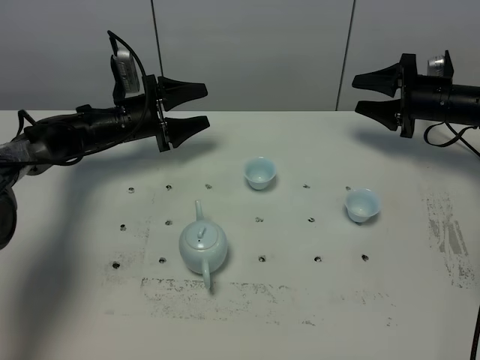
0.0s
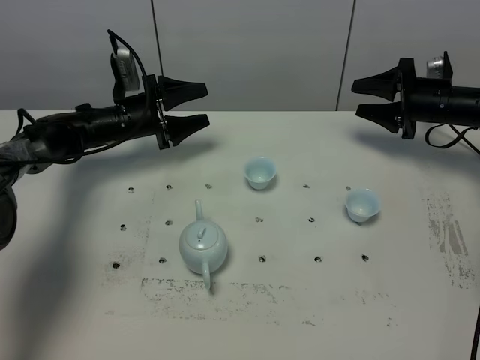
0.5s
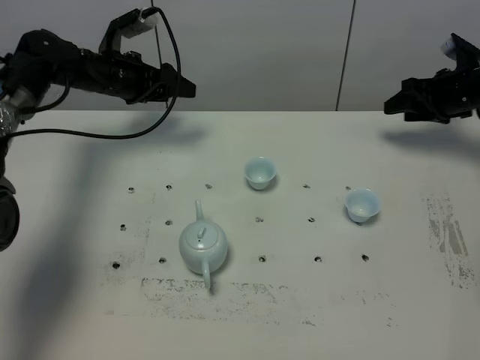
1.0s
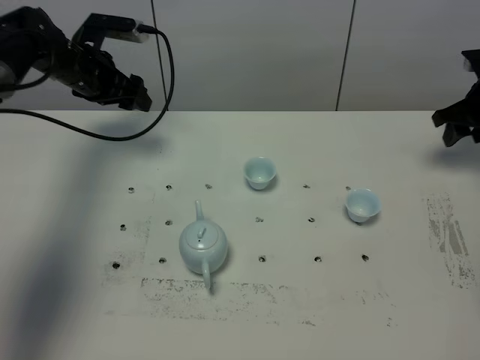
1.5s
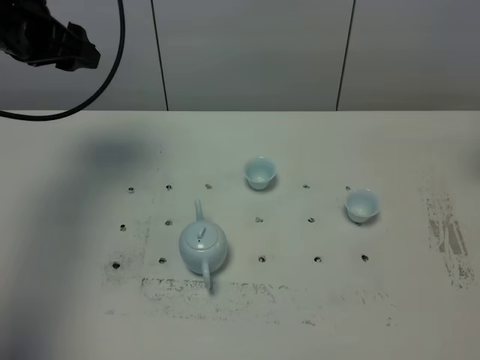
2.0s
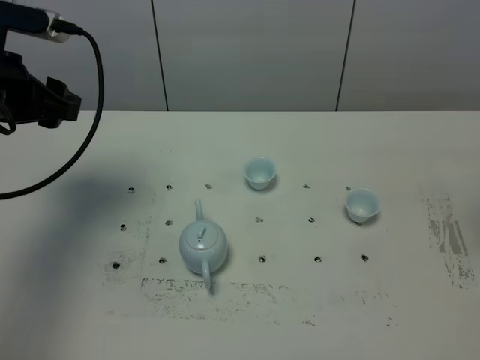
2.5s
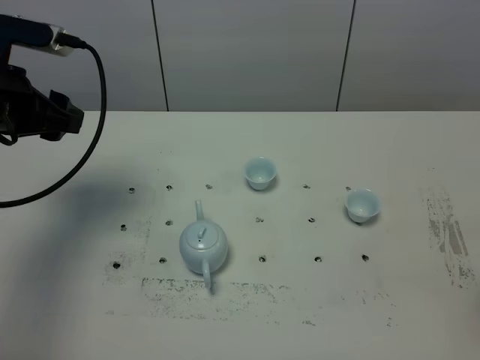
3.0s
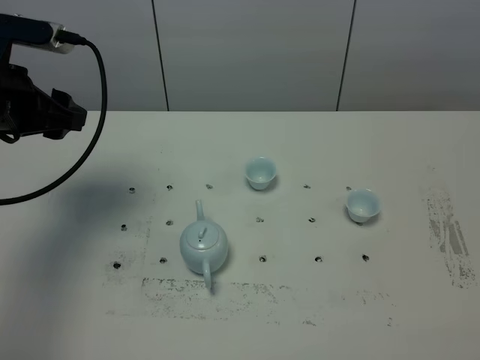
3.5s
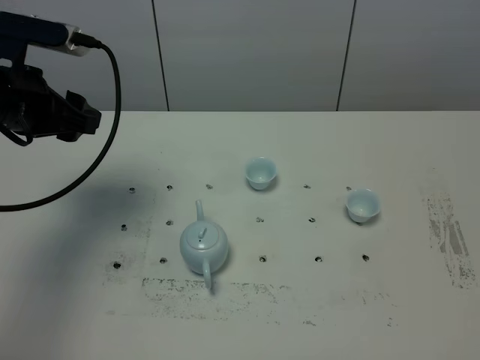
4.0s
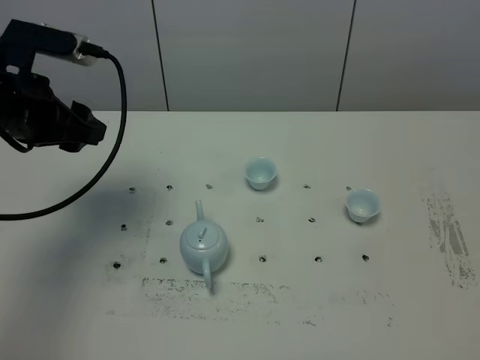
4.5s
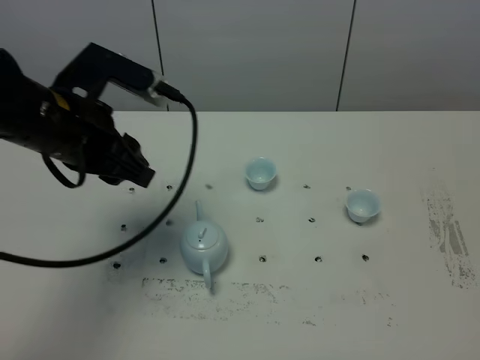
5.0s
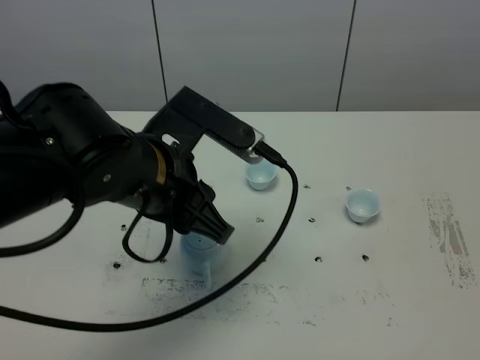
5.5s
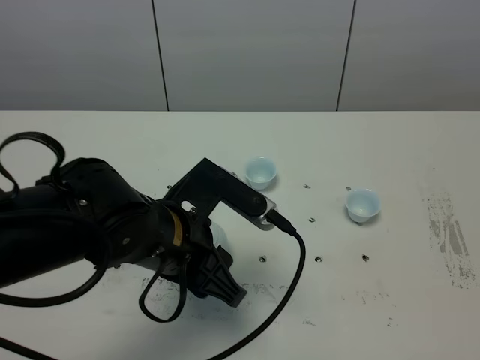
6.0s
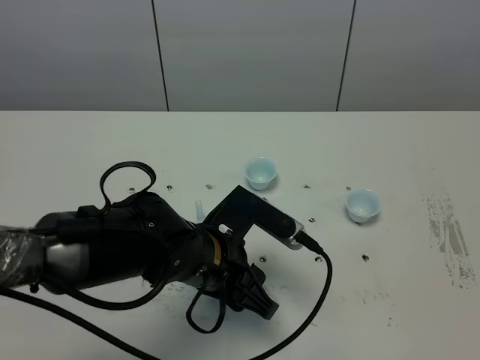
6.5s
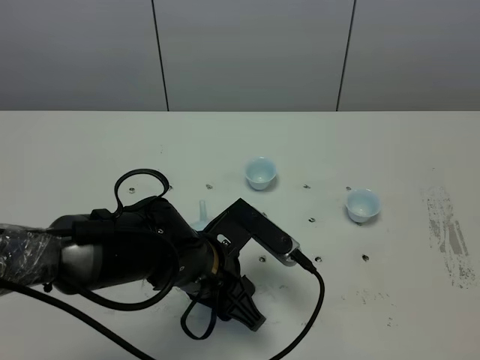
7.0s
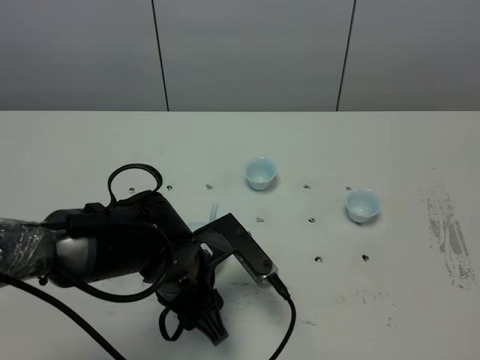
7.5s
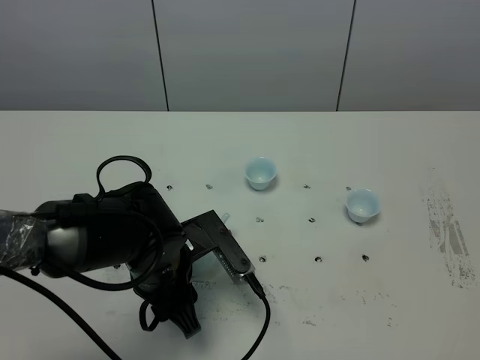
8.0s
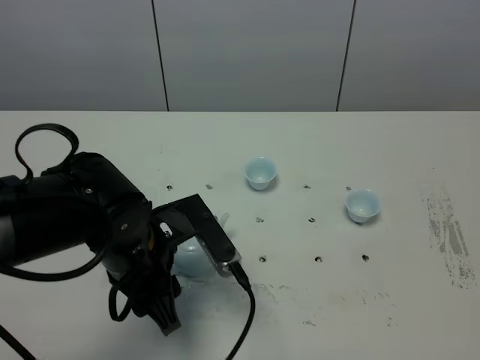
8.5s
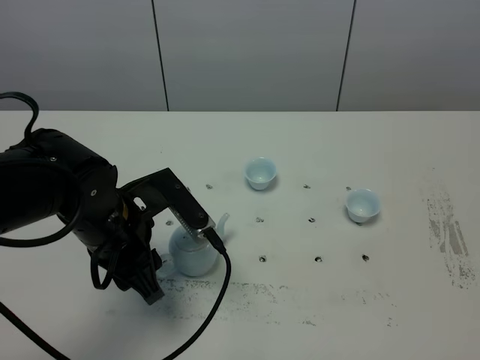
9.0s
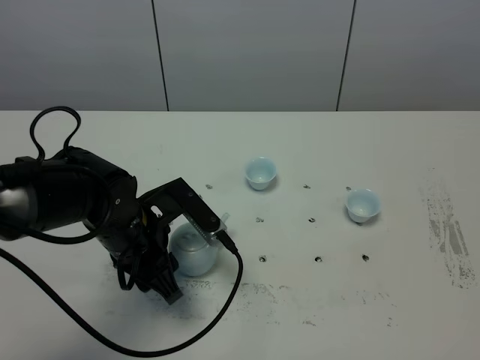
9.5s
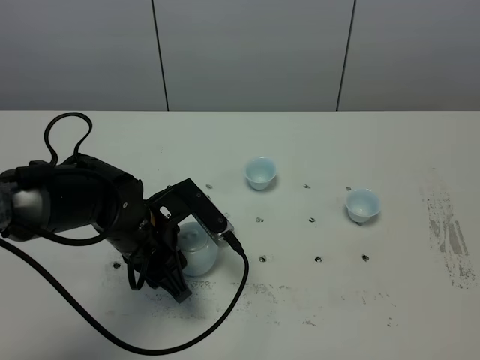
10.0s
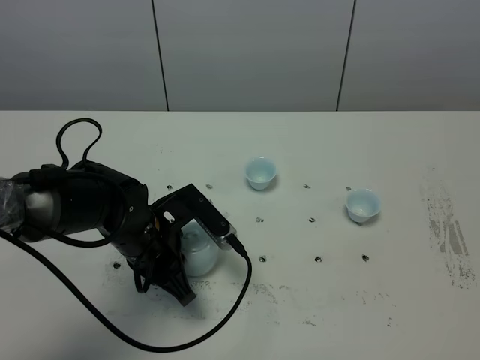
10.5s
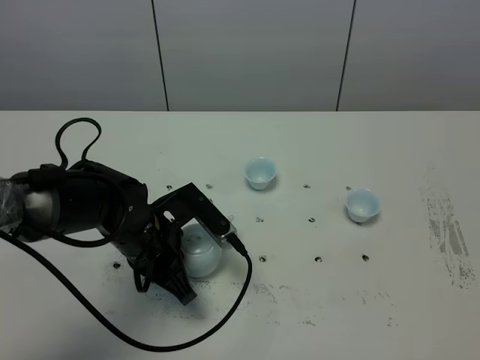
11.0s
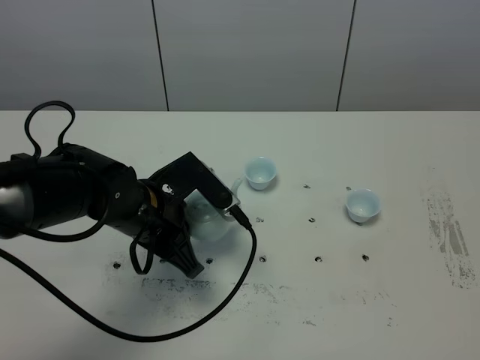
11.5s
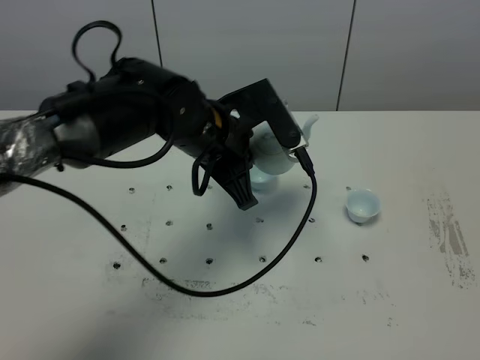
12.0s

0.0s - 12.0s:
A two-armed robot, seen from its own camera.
Task of the whole recording: grasp the blue porcelain teapot and pour the tea into the two blue porcelain teacups one by one, put the blue porcelain teapot back in its original place.
Step, 0.0s - 11.0s: Pick up the teapot with the left gripper.
0.0s - 2.0s: The left gripper heads upward, covering about 25 cm. Meanwhile the right gripper is displaced upward and backward by roughly 20 cm, and closes up.
2.0s - 4.0s: The left gripper heads backward, covering about 10 cm.
4.0s - 6.0s: The left gripper goes some 20 cm to the right and backward.
6.0s - 8.0s: The left gripper shifts roughly 5 cm downward.
8.0s - 10.0s: The left gripper ends up approximately 5 cm from where it was.
10.0s - 12.0s: The left gripper is displaced upward, to the right and forward by some 15 cm, and closes its fingers.

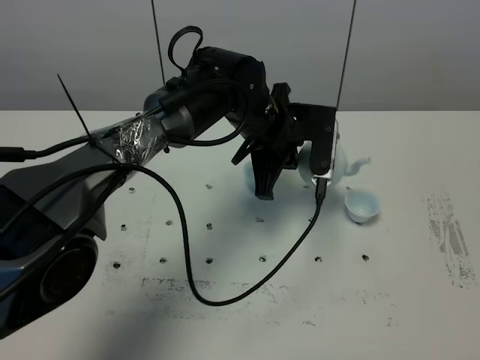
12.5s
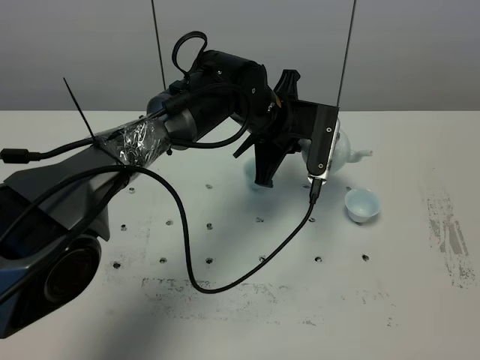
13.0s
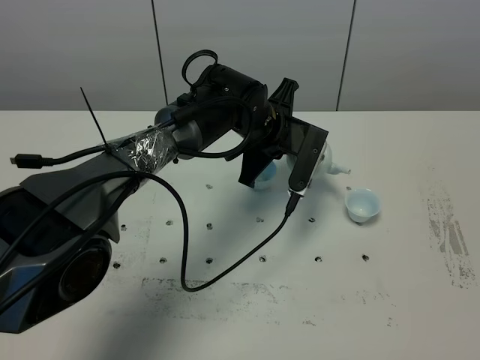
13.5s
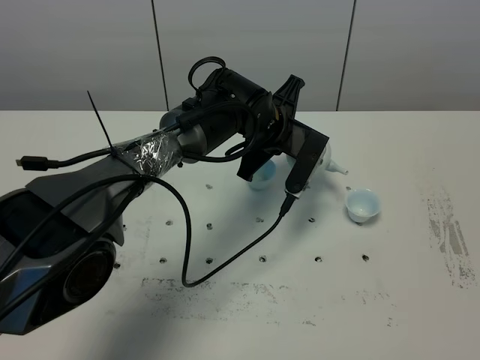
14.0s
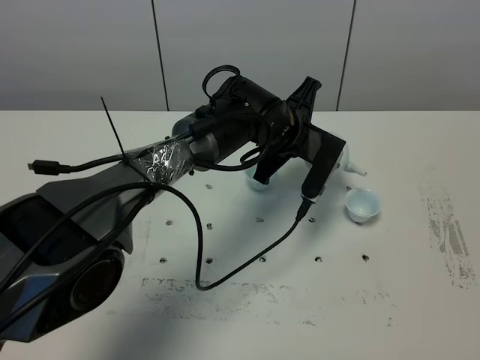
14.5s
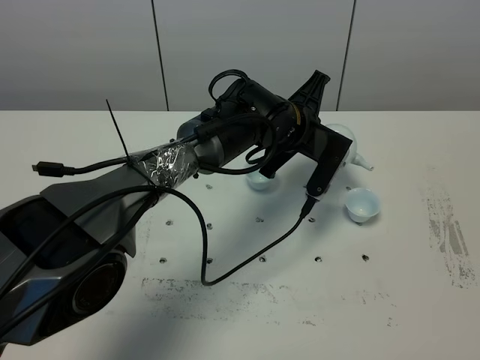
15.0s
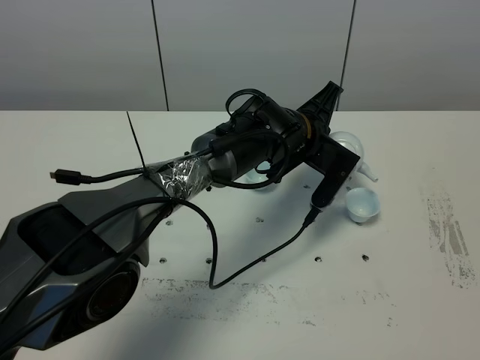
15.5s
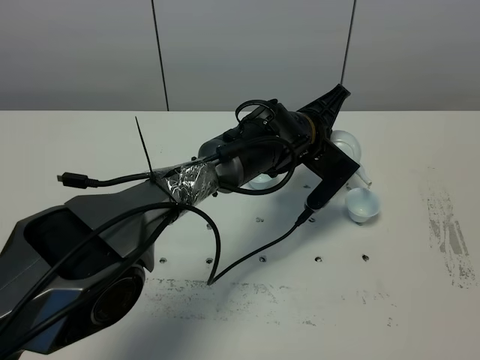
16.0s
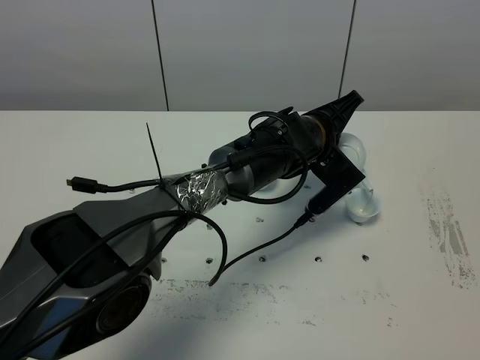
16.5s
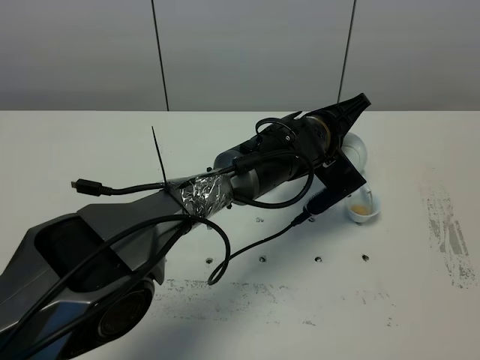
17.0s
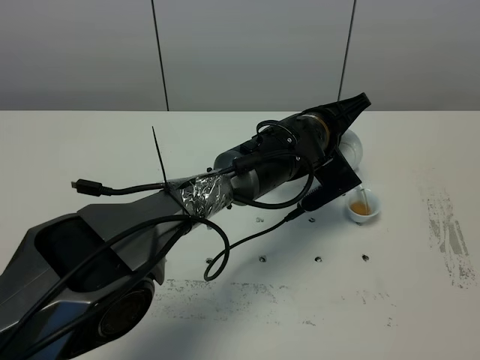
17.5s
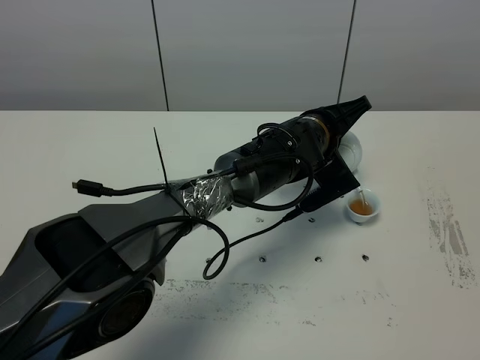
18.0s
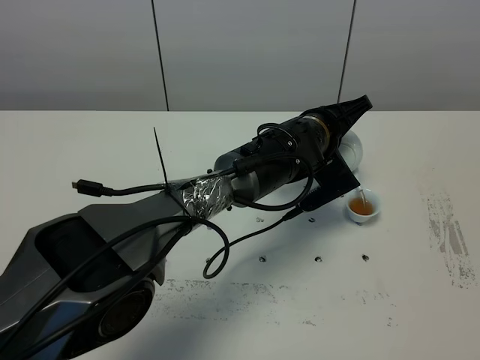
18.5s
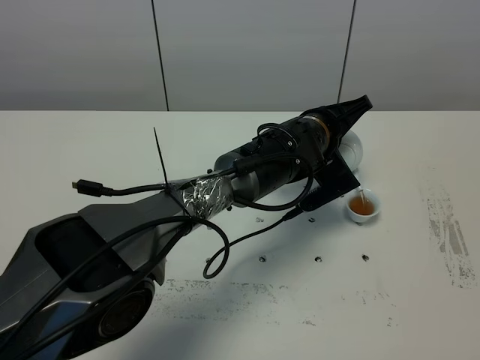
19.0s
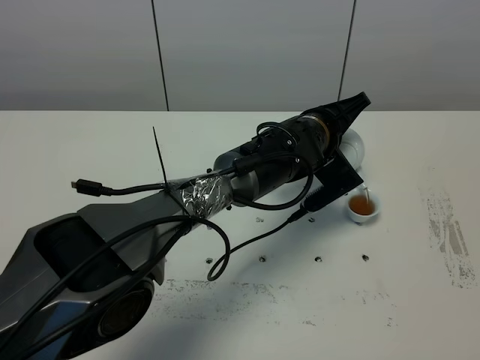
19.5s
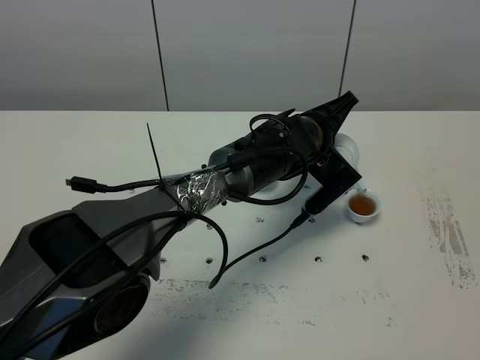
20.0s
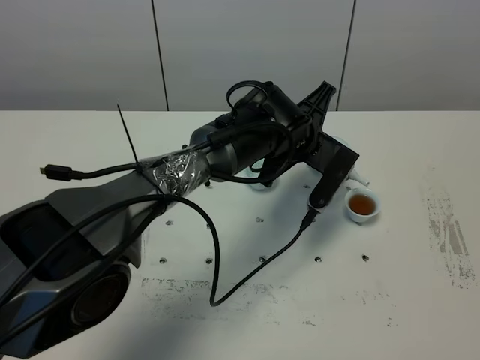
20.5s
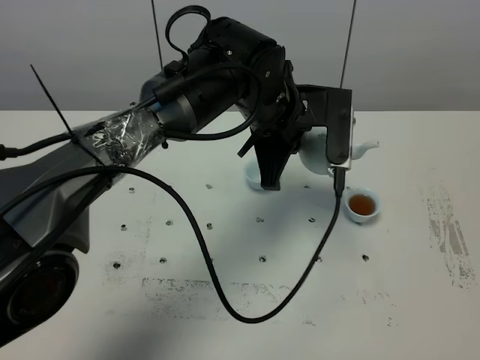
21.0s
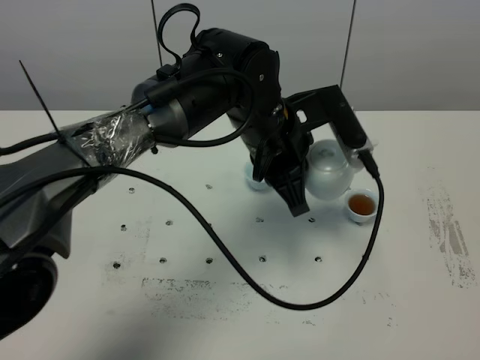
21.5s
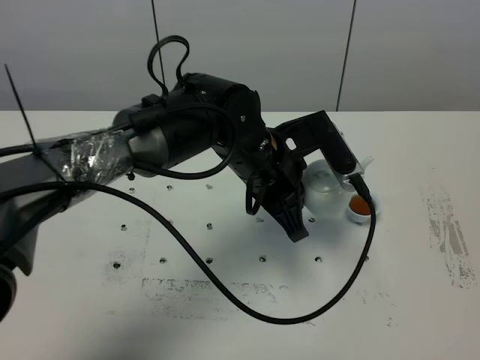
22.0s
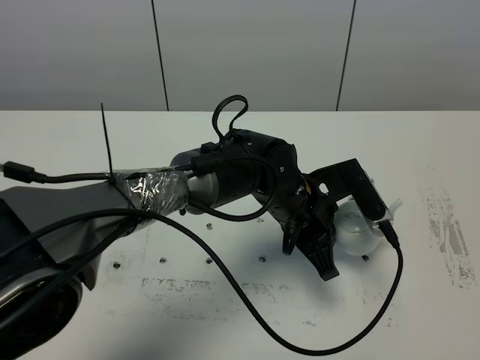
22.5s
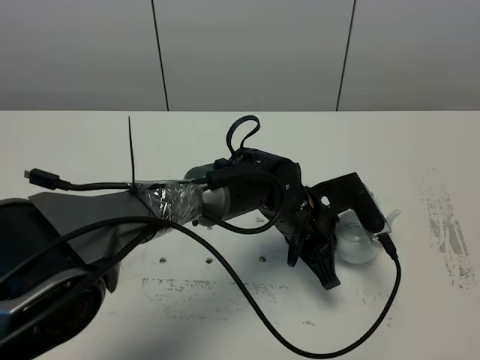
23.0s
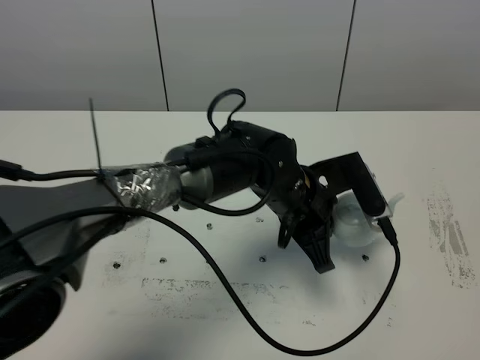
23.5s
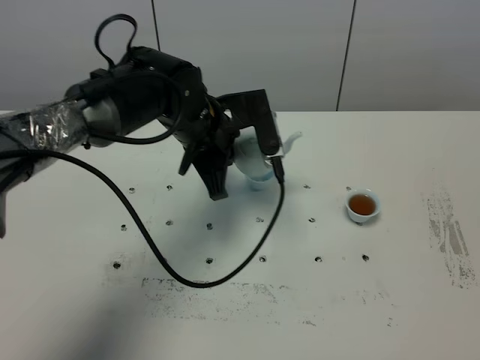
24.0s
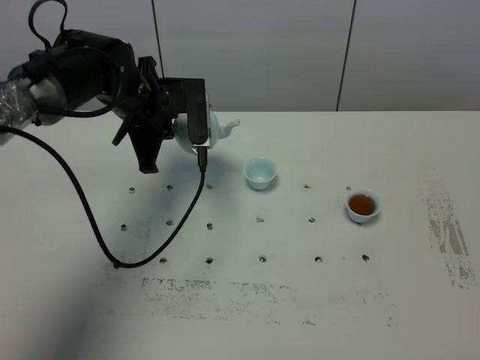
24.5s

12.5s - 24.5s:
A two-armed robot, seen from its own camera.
Task of the whole recording: grasp the blue porcelain teapot and pour the tea into the two blue porcelain teacups one by one, put the blue porcelain teapot back in its original place.
Step, 12.5s - 20.0s: Pour tea into the teacup with the left gripper.
16.5s - 18.5s: There are only small adjustments of the grippers.
20.5s - 22.5s: The left gripper travels backward by approximately 10 cm.
22.5s - 24.5s: The left gripper moves to the left and forward, approximately 25 cm.

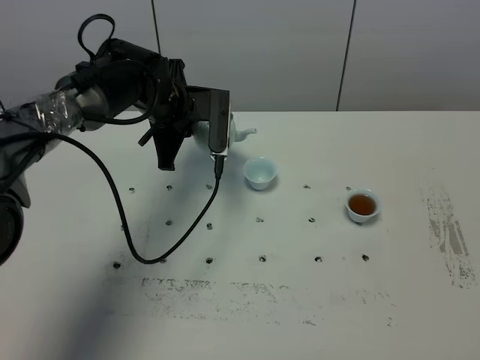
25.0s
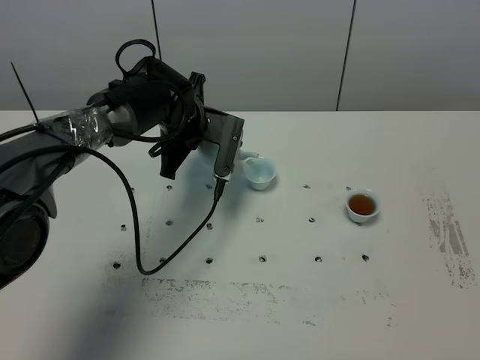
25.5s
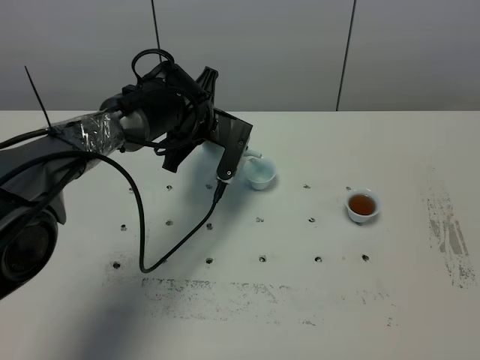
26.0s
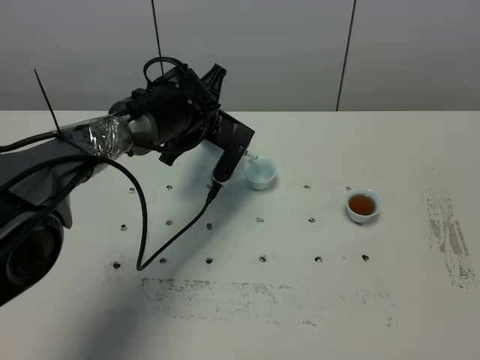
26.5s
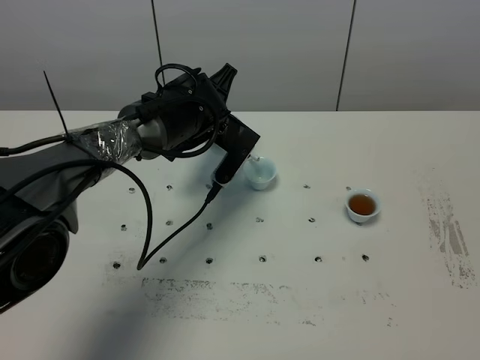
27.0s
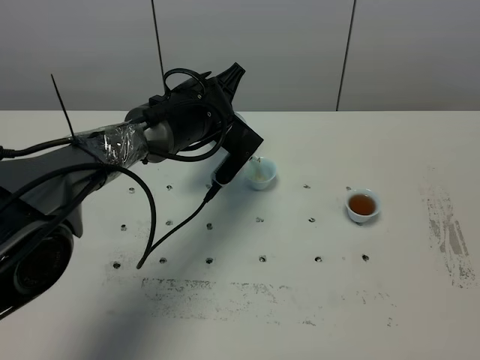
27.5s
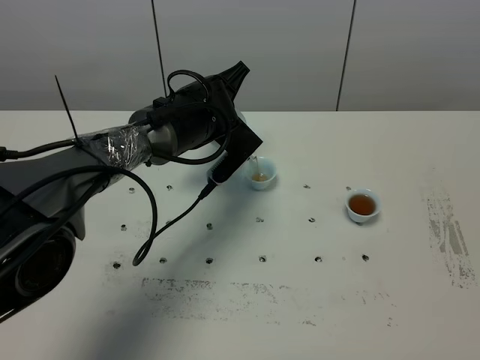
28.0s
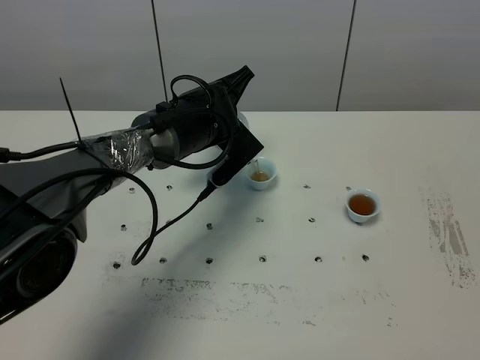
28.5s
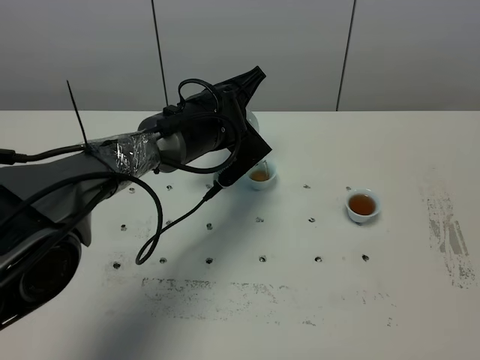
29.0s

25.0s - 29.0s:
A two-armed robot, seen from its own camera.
Task of the whole recording: grasp the blue porcelain teapot and pour the tea into the two blue porcelain teacups one by one, put the blue porcelain teapot back in its original place.
25.0s - 27.0s: The left gripper is displaced to the right by some 5 cm.
27.0s - 29.0s: The grippers move only a little.
